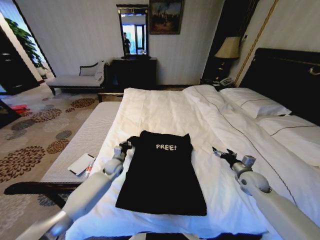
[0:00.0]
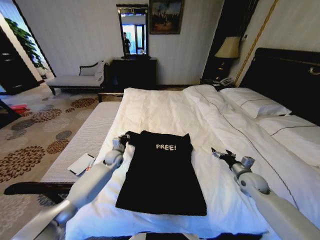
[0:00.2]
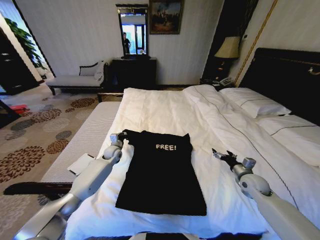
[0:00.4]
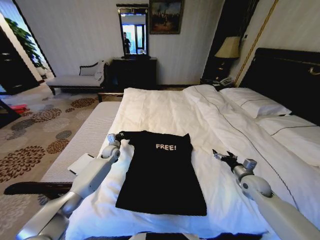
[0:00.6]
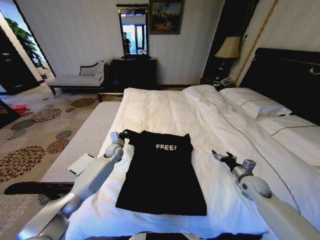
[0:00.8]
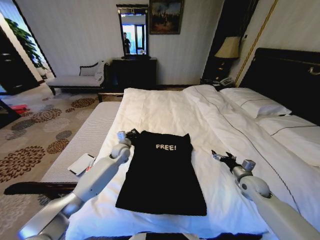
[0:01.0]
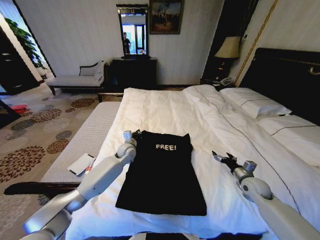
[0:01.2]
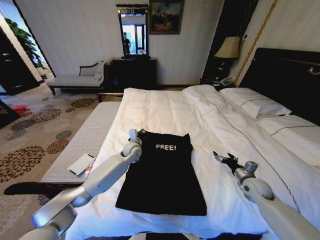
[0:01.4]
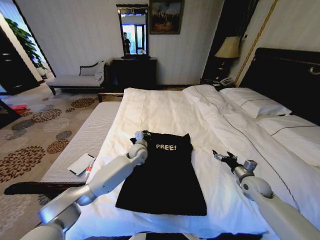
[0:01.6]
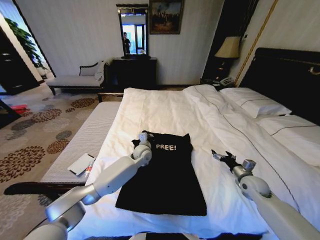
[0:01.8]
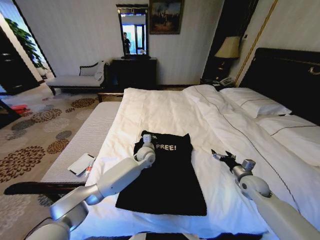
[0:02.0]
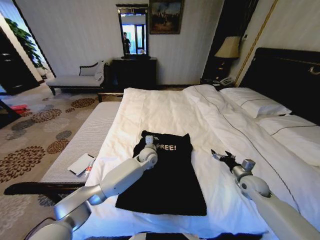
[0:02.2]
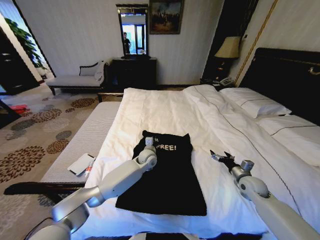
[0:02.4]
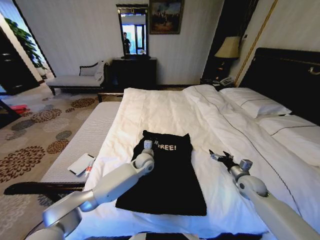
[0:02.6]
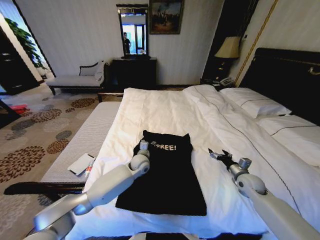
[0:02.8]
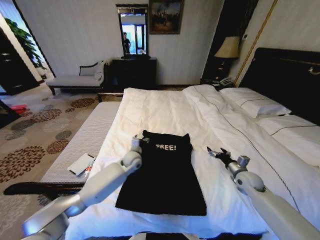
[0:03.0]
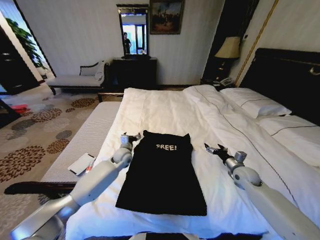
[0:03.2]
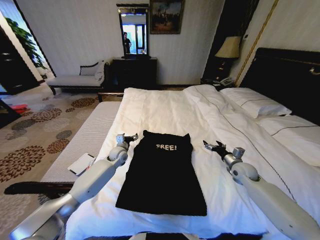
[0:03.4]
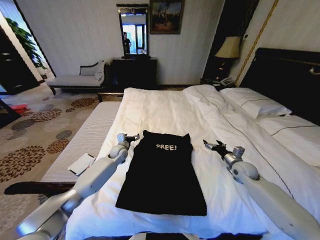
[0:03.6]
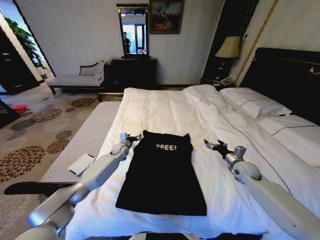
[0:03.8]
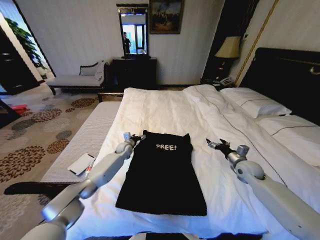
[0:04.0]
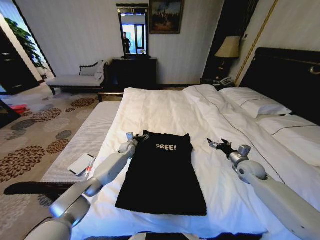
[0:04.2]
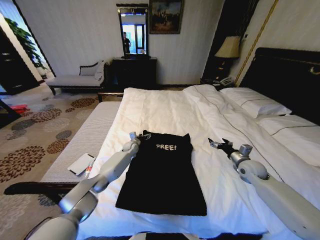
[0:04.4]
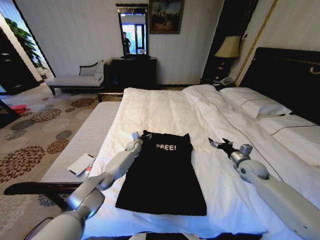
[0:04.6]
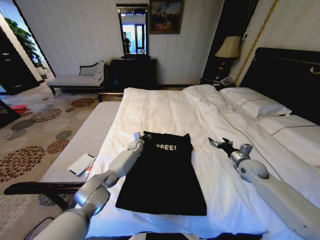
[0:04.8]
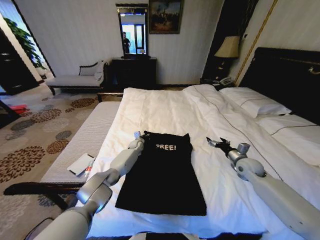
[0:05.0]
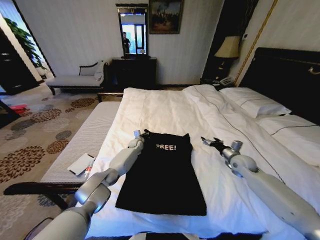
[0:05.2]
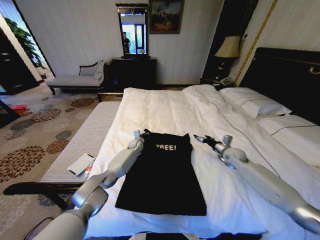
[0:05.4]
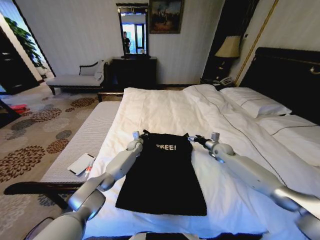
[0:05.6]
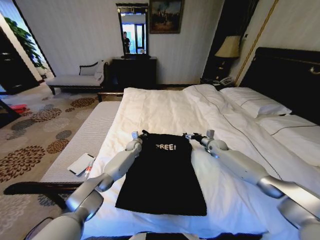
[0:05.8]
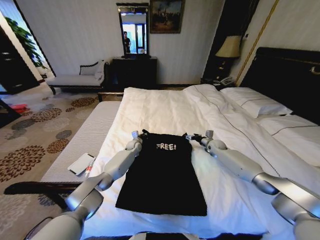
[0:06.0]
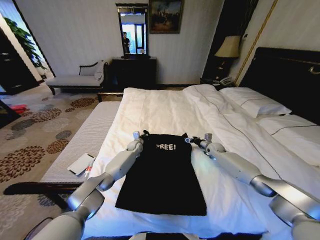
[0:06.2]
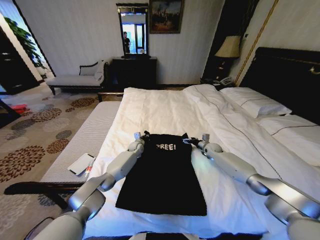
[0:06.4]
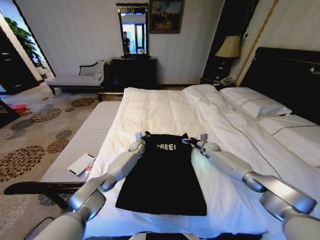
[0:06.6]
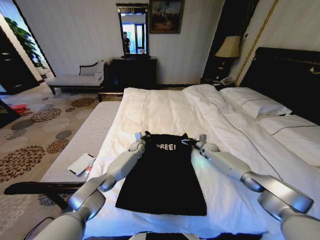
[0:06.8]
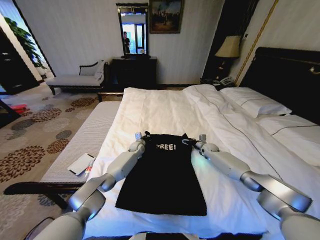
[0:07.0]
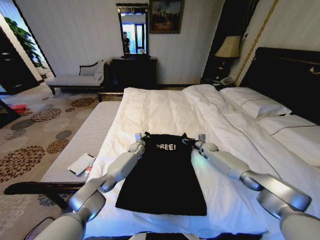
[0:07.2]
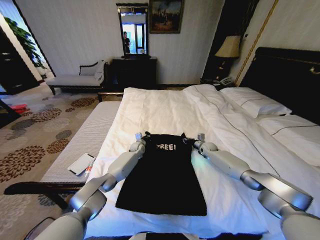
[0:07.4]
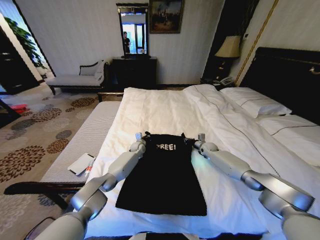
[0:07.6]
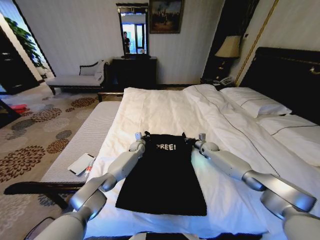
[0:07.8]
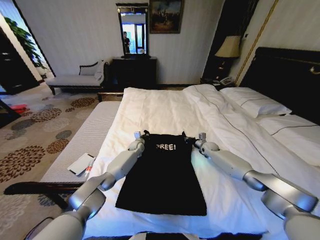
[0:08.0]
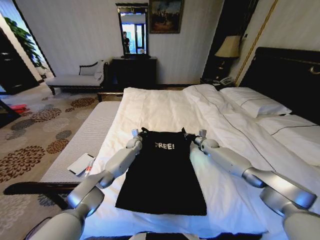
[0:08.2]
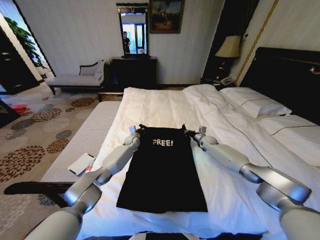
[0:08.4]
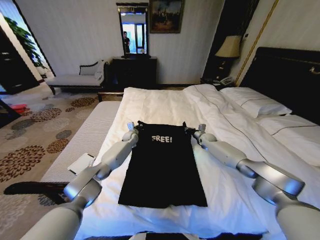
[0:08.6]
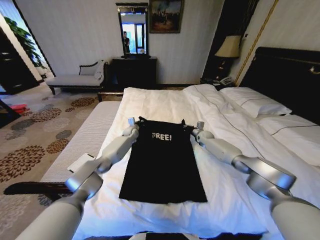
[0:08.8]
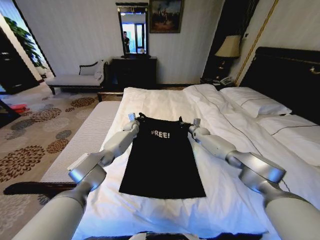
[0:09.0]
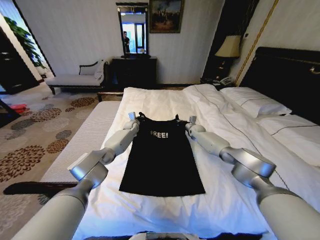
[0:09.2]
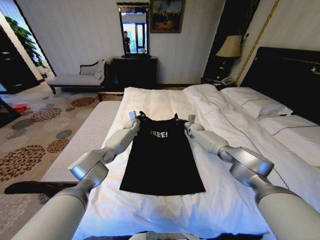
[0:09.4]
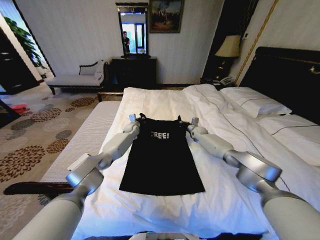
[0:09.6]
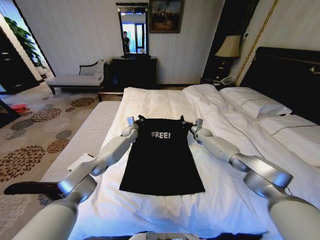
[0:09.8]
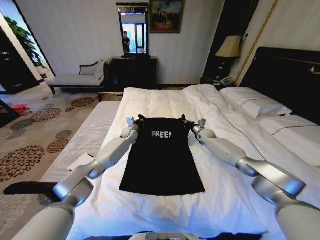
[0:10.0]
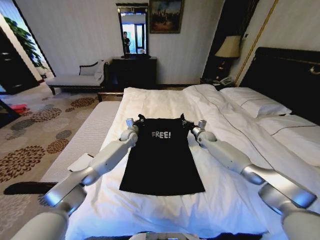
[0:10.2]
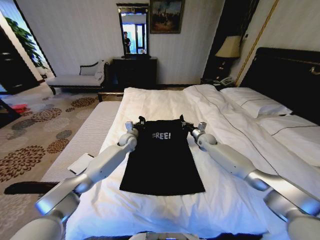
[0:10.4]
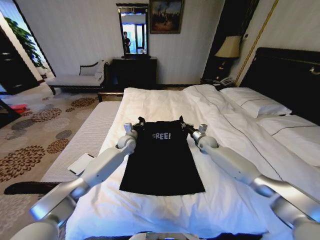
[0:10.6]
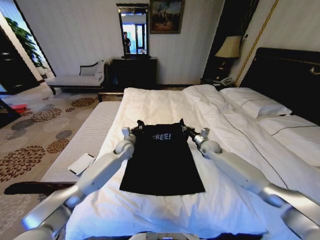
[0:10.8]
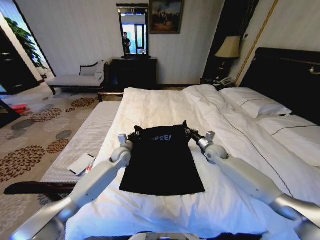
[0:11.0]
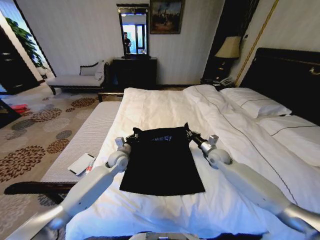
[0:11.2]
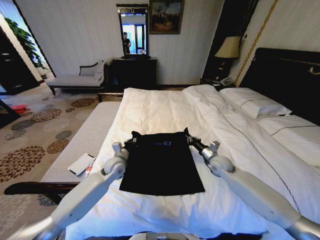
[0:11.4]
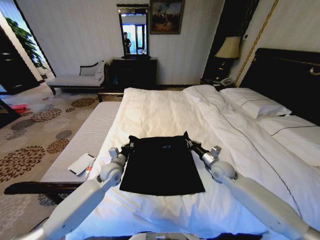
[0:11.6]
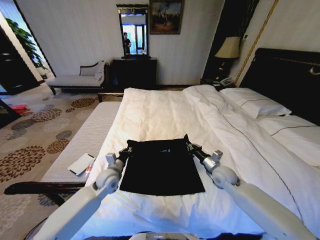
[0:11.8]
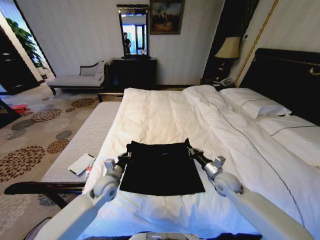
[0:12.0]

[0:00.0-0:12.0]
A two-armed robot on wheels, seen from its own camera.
Task of the whole recording: Fold the clothes on the bed.
0:00.0 to 0:01.6: The left gripper shifts approximately 15 cm to the right and upward.
0:01.6 to 0:03.0: The left gripper travels to the right and back again, approximately 5 cm each way, and opens.
0:03.0 to 0:04.4: The right gripper moves about 5 cm. The left gripper is displaced forward and downward by approximately 15 cm.
0:04.4 to 0:06.0: The right gripper is displaced forward by approximately 20 cm. The left gripper closes.
0:06.0 to 0:07.6: The right gripper closes its fingers.
0:07.6 to 0:09.0: The right gripper shifts some 10 cm forward and upward. Meanwhile the left gripper moves upward and forward, approximately 15 cm.
0:09.0 to 0:10.4: The right gripper shifts some 5 cm backward, while the left gripper goes approximately 10 cm backward.
0:10.4 to 0:12.0: Both grippers travel together backward, some 25 cm.

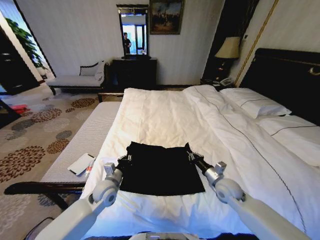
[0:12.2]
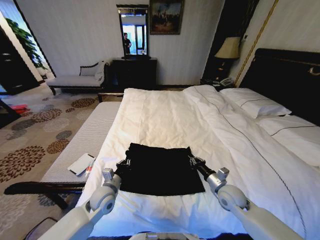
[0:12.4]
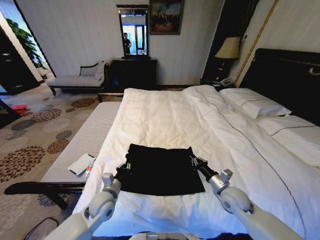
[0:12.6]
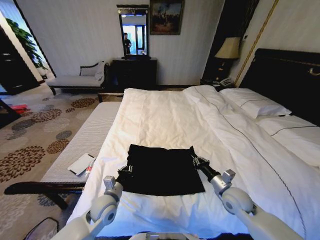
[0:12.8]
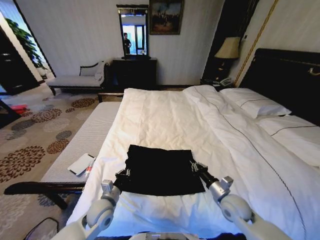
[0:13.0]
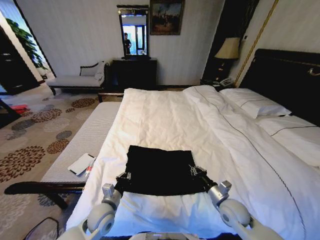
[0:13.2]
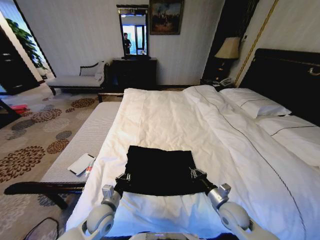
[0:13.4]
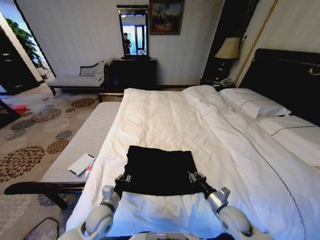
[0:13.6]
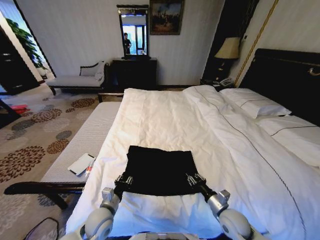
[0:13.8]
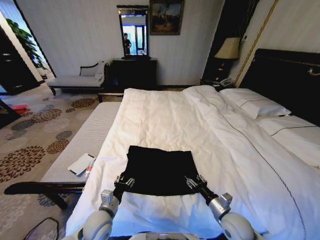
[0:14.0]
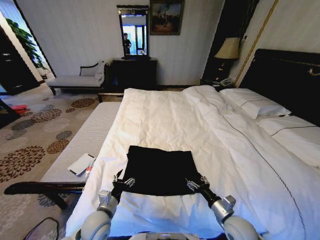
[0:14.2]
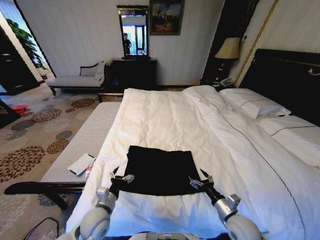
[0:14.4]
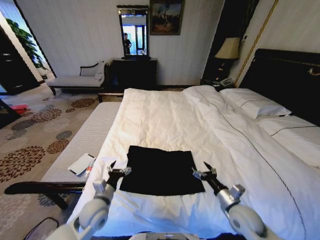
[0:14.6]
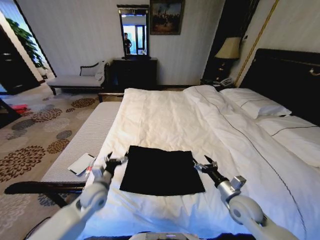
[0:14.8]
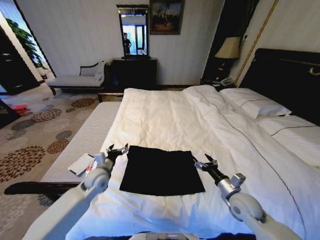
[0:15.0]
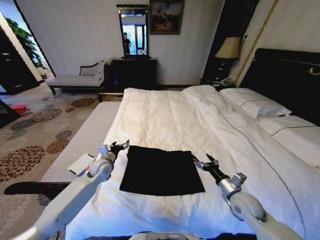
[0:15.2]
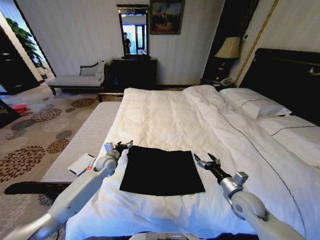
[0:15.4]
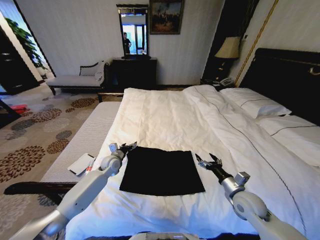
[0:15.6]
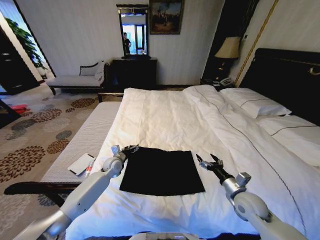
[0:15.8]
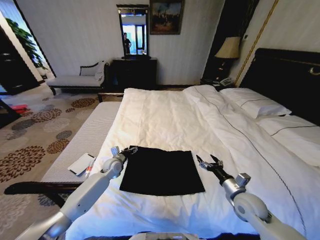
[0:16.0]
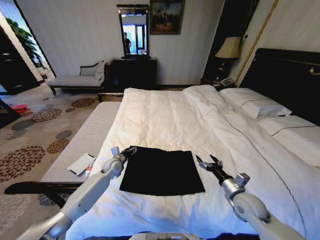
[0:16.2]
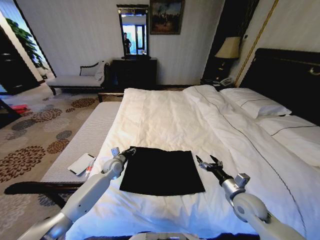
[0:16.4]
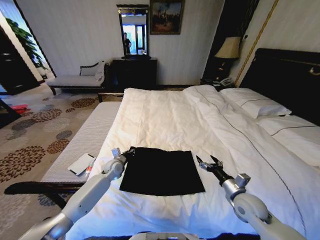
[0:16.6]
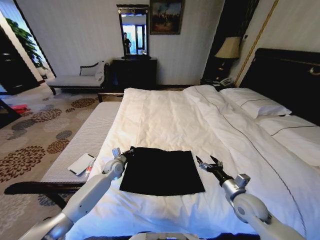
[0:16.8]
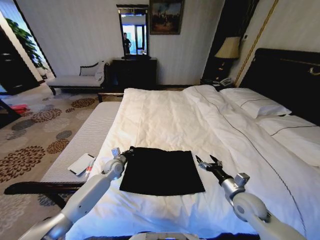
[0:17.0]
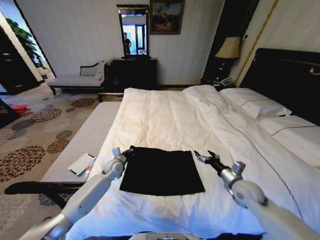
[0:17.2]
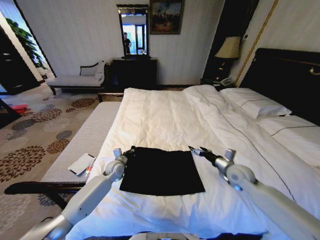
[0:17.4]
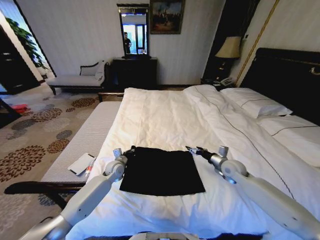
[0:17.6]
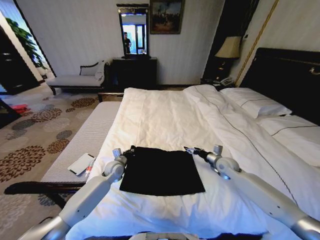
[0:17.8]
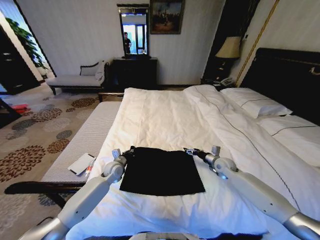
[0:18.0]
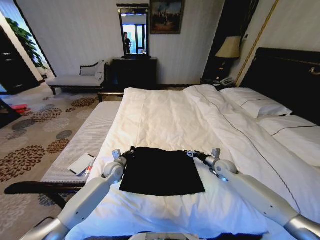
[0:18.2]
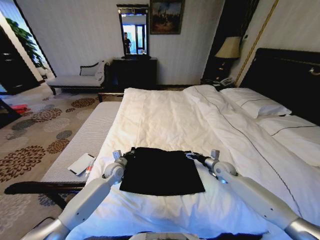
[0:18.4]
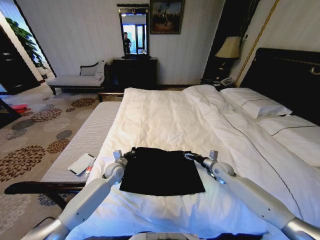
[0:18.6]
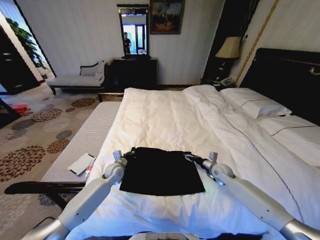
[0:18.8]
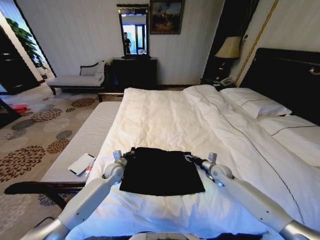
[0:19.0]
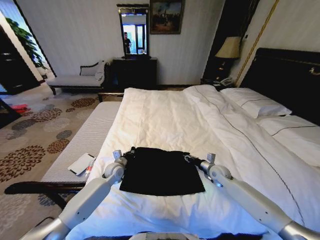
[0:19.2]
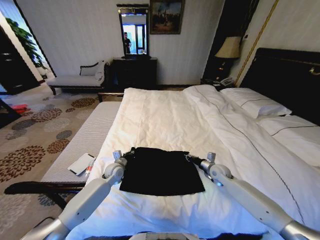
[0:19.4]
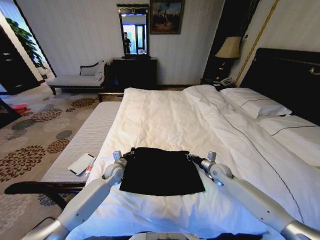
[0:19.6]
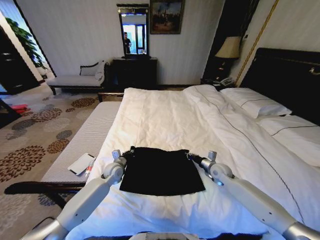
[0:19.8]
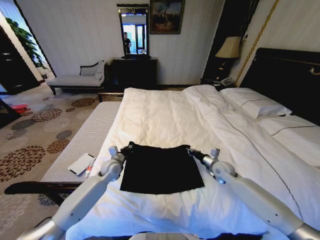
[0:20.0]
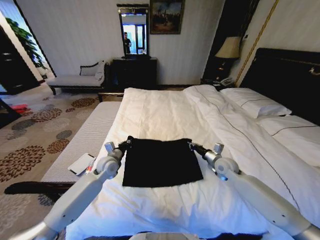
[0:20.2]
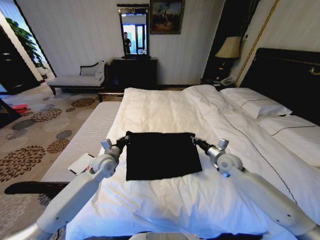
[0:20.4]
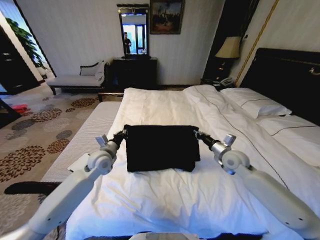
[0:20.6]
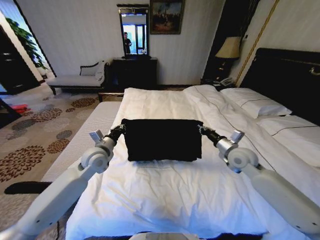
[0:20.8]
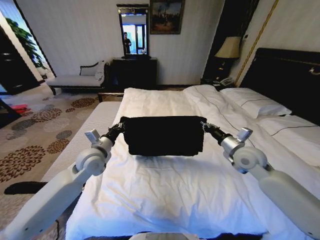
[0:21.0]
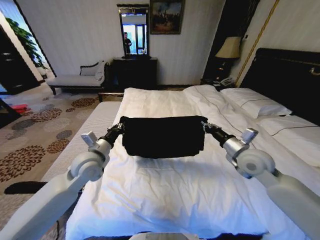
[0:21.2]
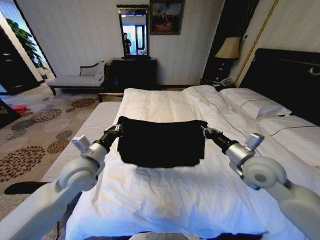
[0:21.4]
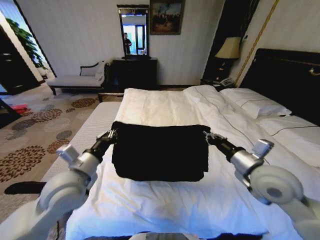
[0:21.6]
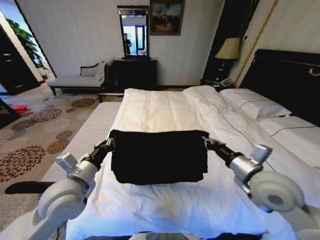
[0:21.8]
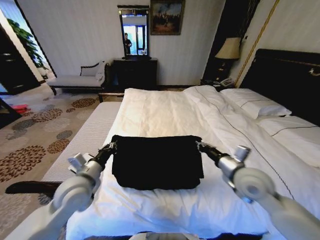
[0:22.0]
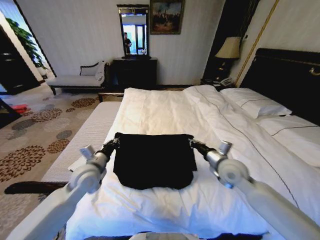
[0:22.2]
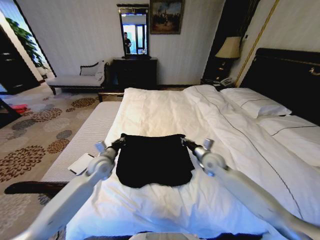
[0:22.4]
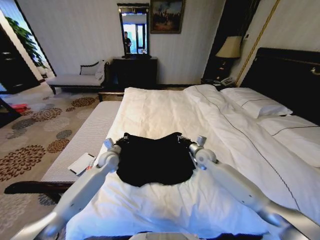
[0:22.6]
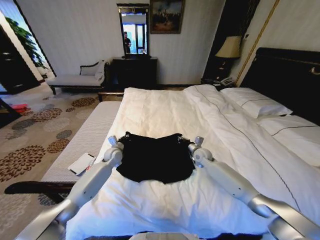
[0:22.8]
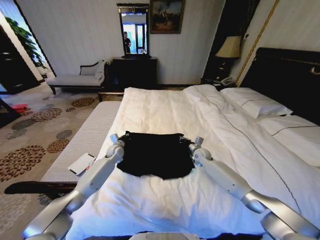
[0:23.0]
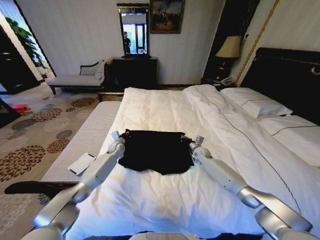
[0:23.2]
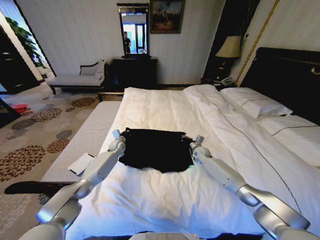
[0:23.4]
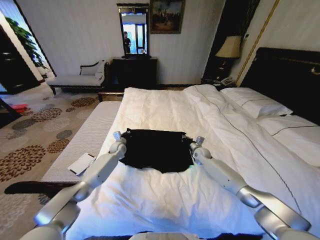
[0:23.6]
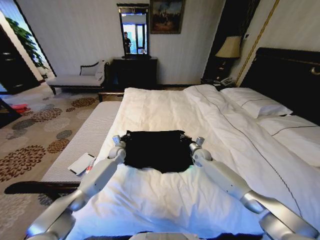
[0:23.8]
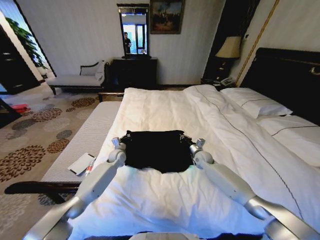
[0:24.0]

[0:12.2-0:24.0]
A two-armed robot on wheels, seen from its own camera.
Task of the whole recording: Fold the clothes on the bed.
0:12.2 to 0:13.6: The two grippers go approximately 10 cm backward.
0:13.6 to 0:15.2: The right gripper is displaced upward by approximately 5 cm, and opens its fingers, while the left gripper shifts approximately 20 cm forward, and opens its fingers.
0:15.2 to 0:16.6: The left gripper shifts about 5 cm downward, and closes.
0:16.6 to 0:18.2: The right gripper moves forward, about 20 cm.
0:18.2 to 0:19.6: The right gripper closes up.
0:19.6 to 0:21.0: Both grippers move upward, approximately 20 cm.
0:21.0 to 0:22.6: The left gripper travels downward and forward by roughly 15 cm. The right gripper heads downward, forward and to the left, covering roughly 20 cm.
0:22.6 to 0:24.0: The right gripper goes about 5 cm downward. The left gripper heads downward and forward, covering some 10 cm.
